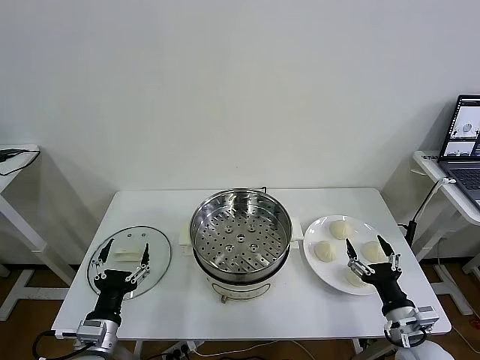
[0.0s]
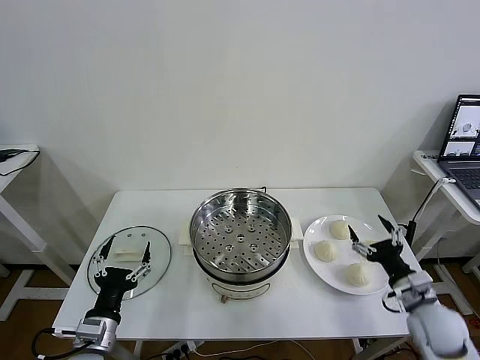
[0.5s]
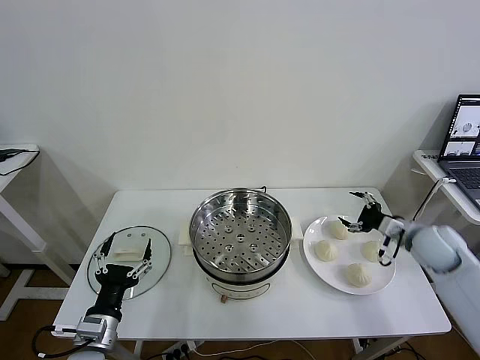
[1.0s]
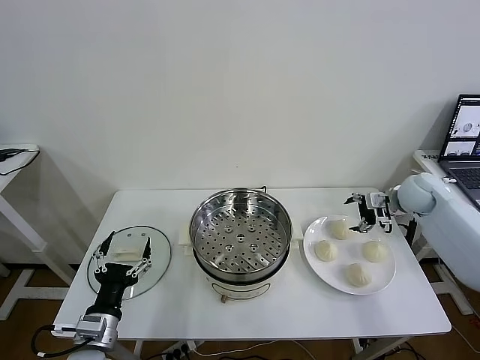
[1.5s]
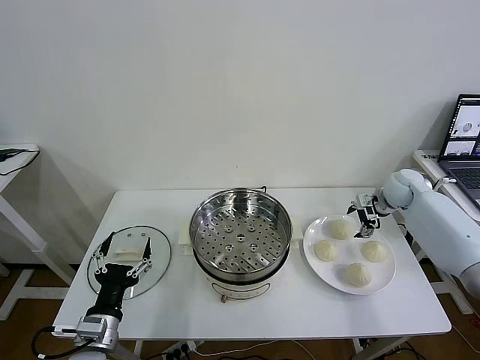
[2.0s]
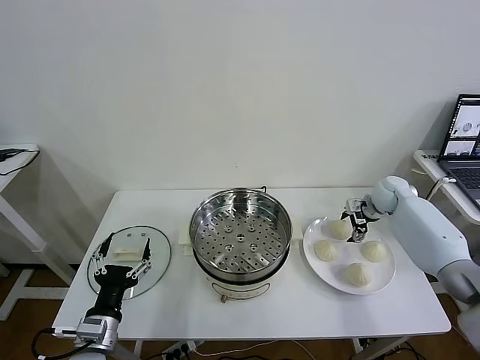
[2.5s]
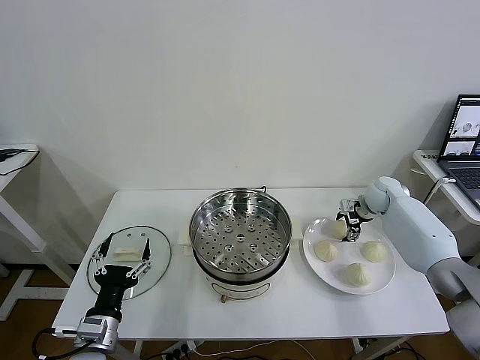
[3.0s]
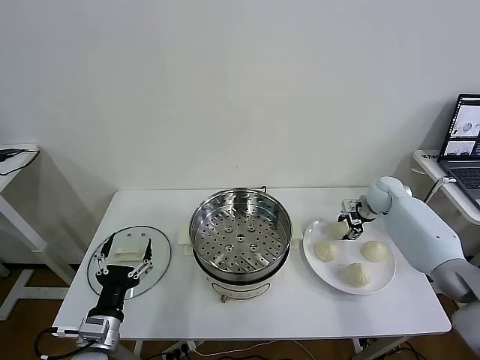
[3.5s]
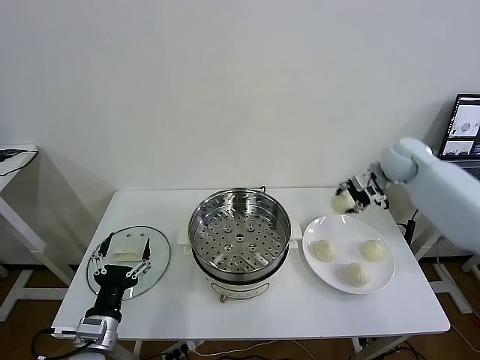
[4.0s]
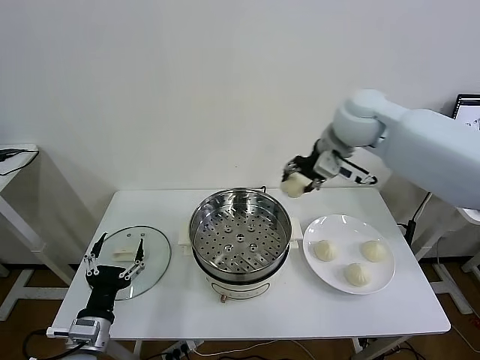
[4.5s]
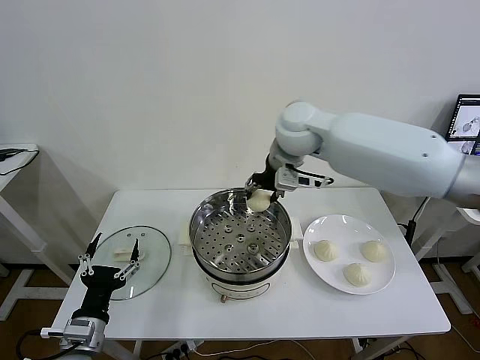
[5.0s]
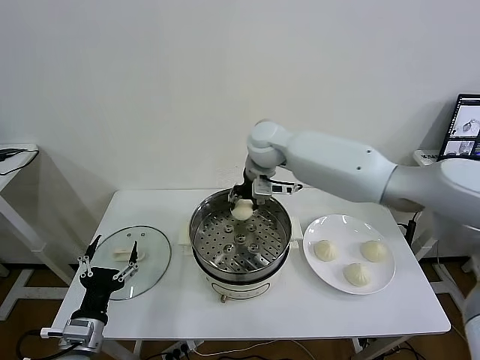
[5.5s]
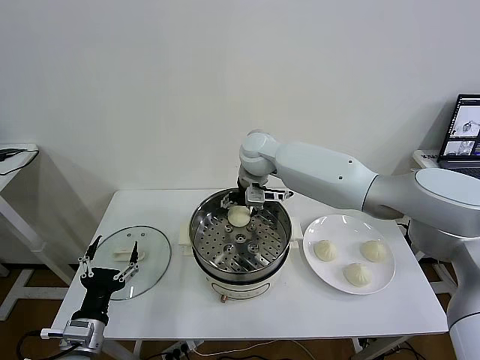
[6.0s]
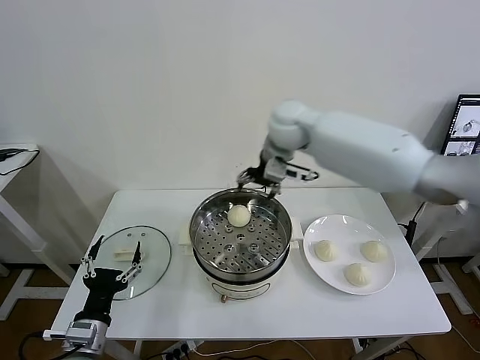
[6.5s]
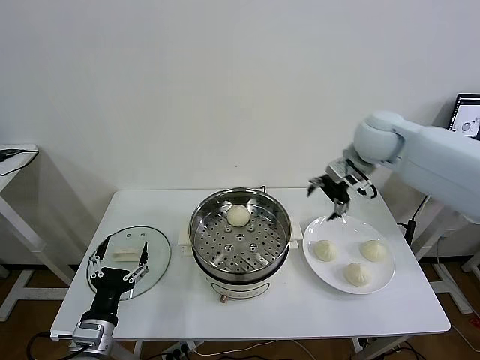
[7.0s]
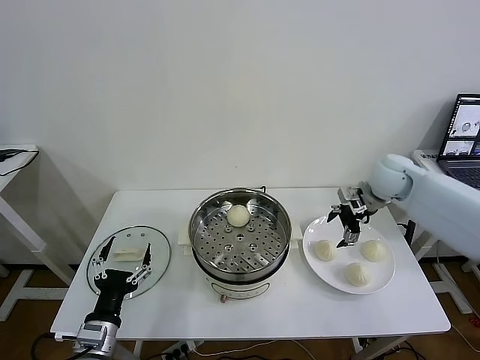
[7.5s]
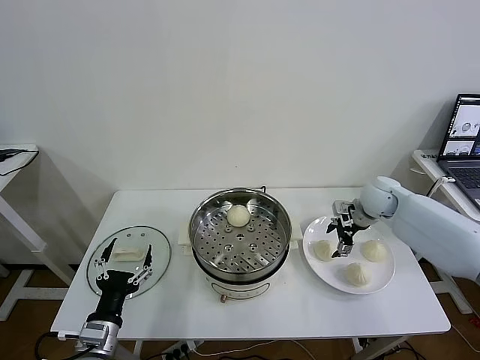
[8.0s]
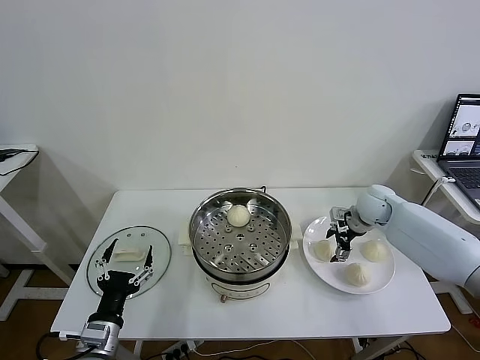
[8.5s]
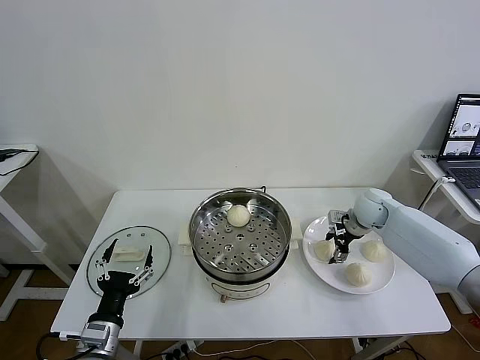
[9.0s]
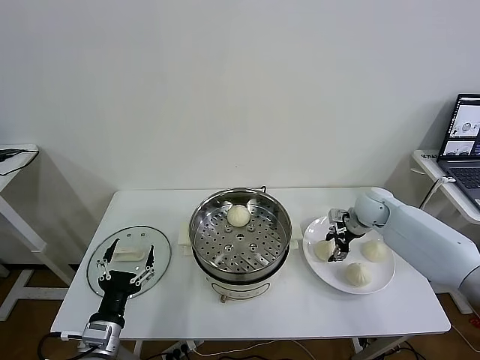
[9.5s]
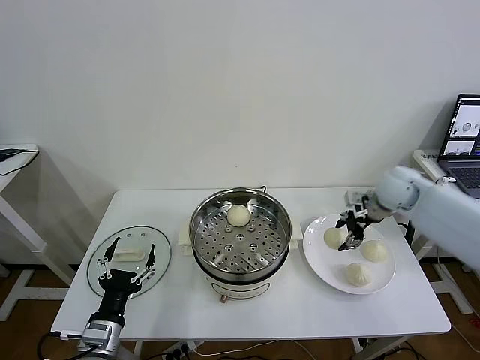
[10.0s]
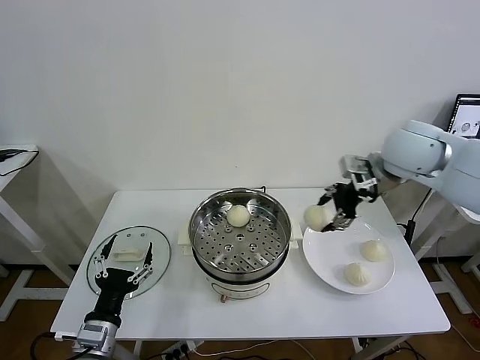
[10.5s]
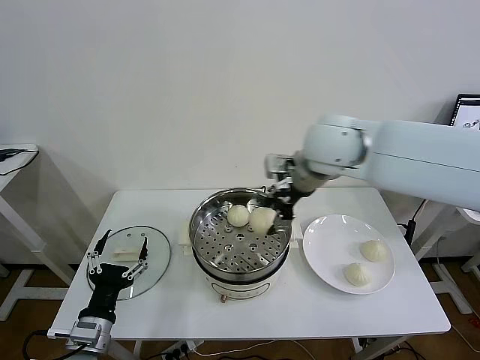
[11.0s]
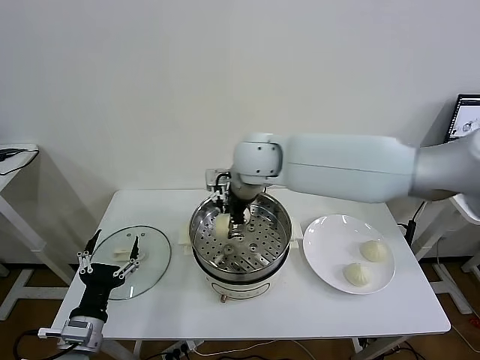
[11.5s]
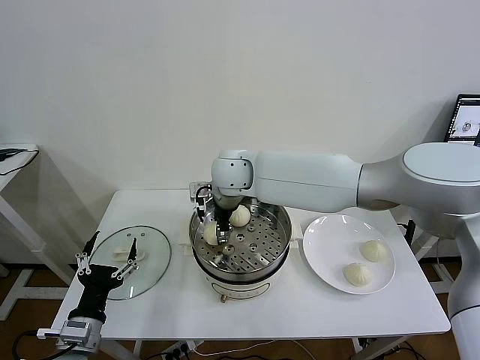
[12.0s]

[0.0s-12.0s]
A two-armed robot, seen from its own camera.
Task of the whole recording: take steamed baozi put them in steamer then cover it.
Step, 0.0s to 3.0s: Grasp the baozi in the plate with right gripper.
Step, 3.5s to 6.0s: Place the baozi on the steamer with right gripper.
Step, 6.5s to 9.0s: Grasp the baozi in the plate with right gripper.
2.0s to 4.0s: The right gripper goes roughly 15 cm upward and to the left, and closes.
4.0s to 6.0s: The right gripper moves to the left, about 30 cm, and opens.
6.0s to 8.0s: The right gripper moves to the right, approximately 30 cm.
8.0s to 10.0s: The right gripper shifts some 10 cm upward, and closes up.
10.0s to 12.0s: The right gripper heads to the left, covering some 40 cm.

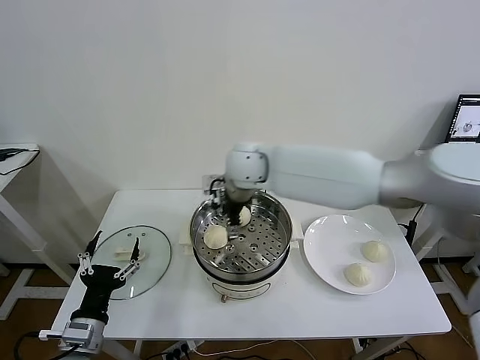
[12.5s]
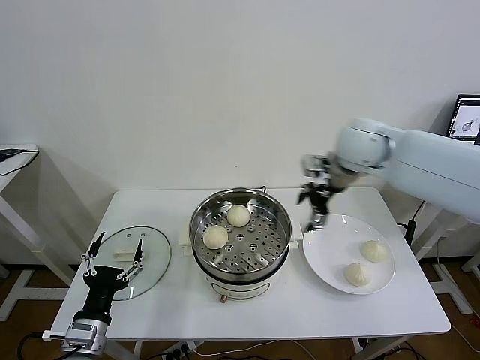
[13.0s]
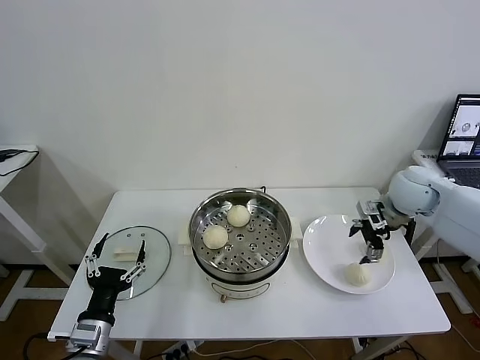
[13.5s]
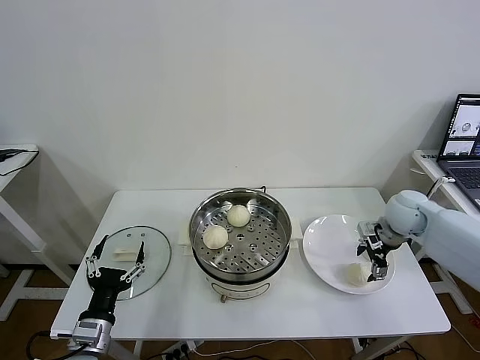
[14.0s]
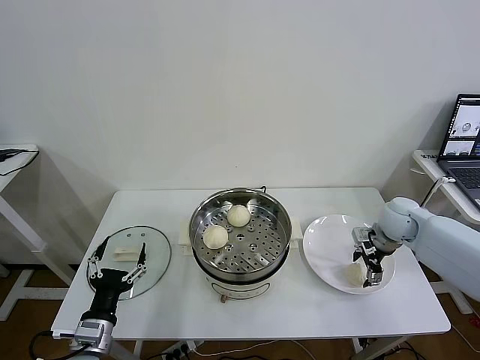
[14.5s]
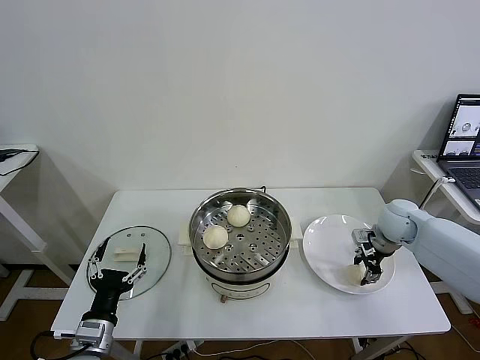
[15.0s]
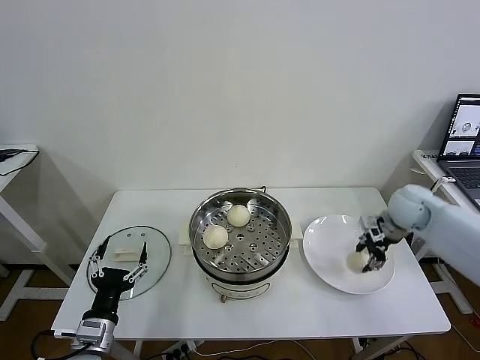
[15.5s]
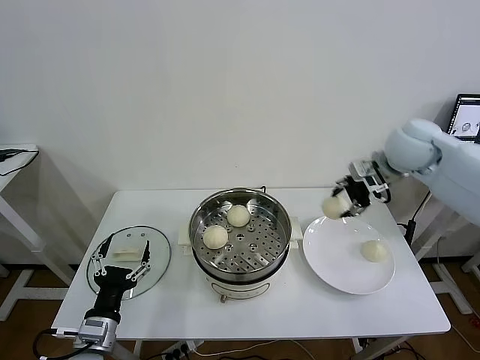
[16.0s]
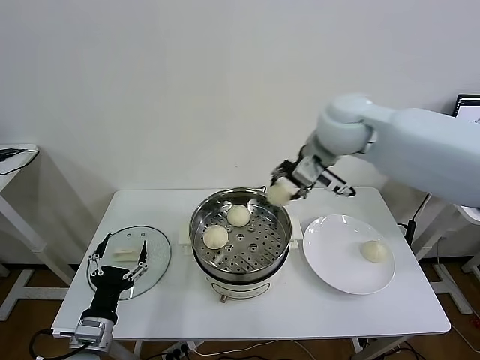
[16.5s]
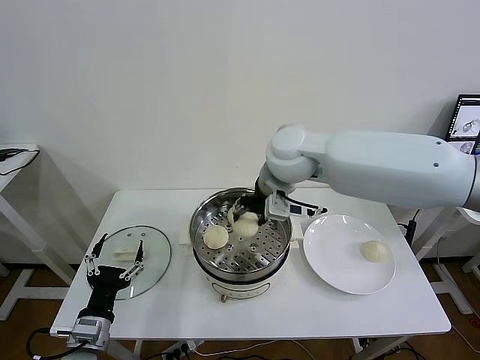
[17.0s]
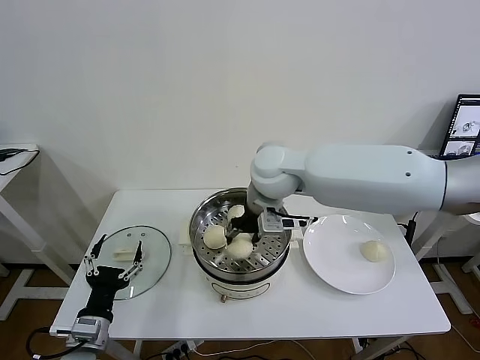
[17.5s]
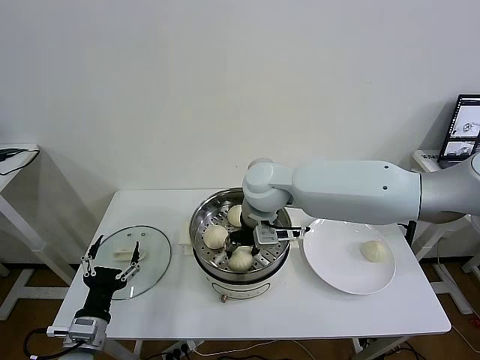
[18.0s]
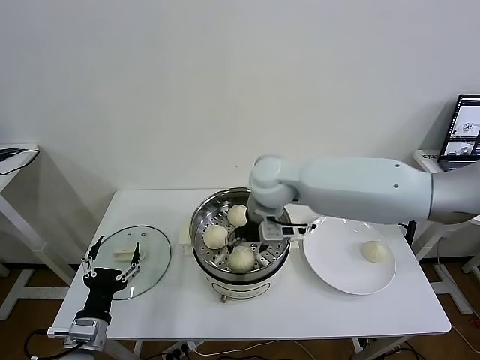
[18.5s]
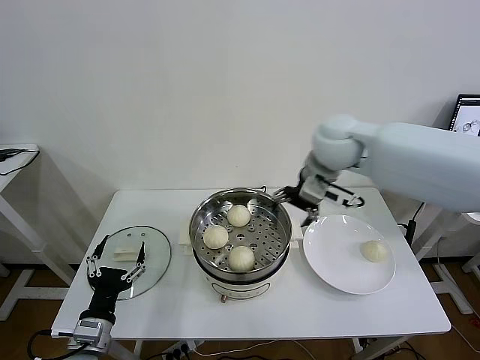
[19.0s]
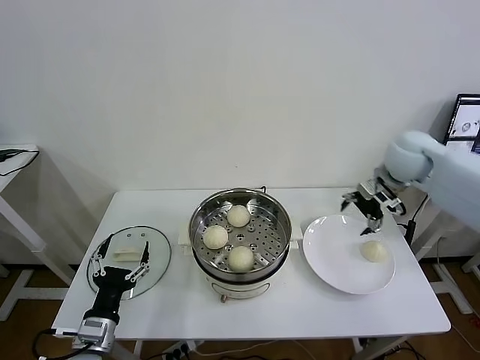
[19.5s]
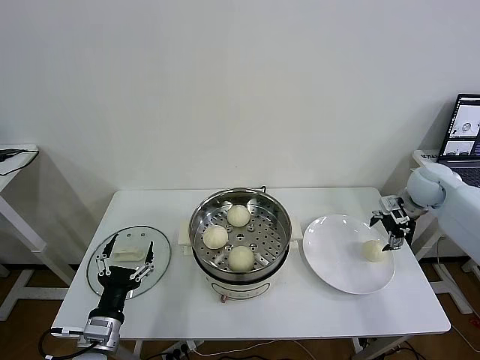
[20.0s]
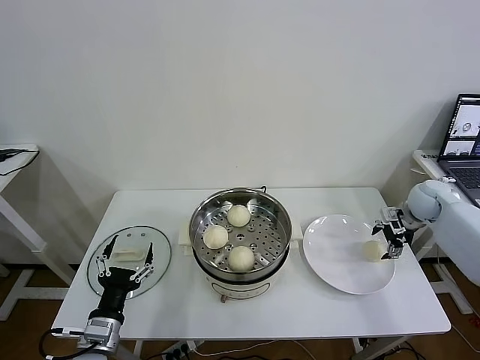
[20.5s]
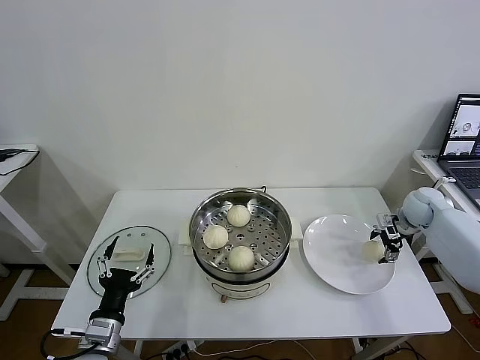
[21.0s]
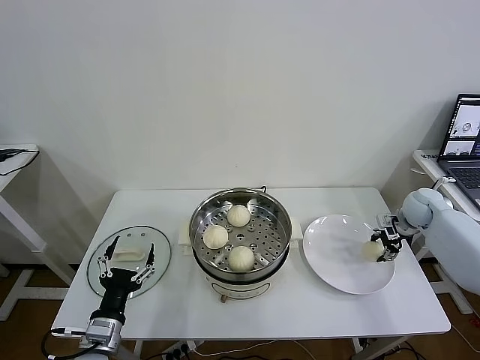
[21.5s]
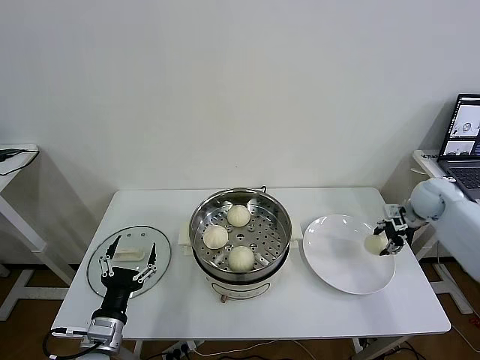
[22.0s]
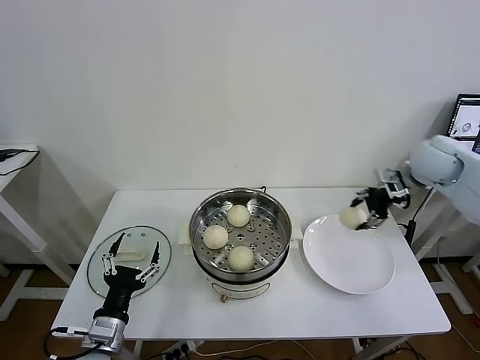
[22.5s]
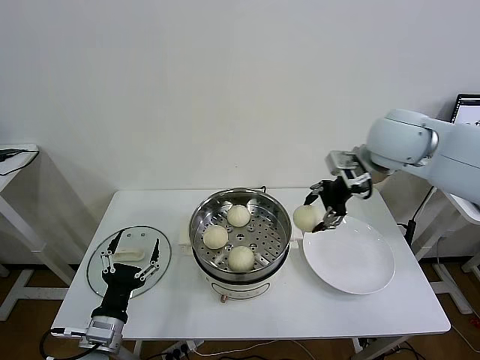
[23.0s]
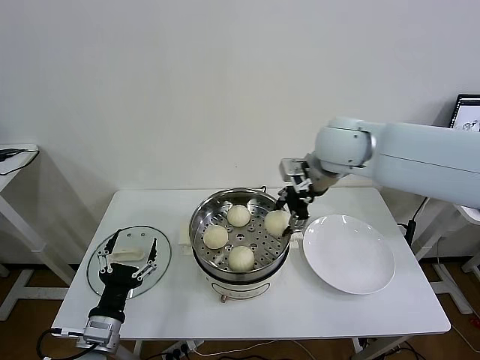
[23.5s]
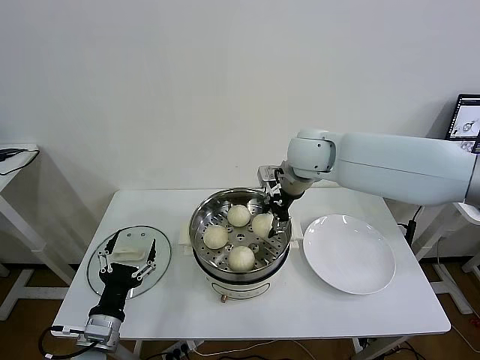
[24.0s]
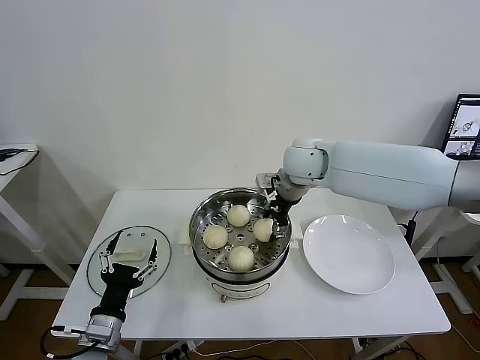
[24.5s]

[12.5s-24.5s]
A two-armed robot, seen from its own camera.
Task of the whole recording: take steamed baozi put them in steamer then cover it.
Step, 12.5s to 14.5s: Grasp the baozi in the plate with right gripper.
Step, 15.0s to 18.0s: Place the baozi on the steamer with right gripper.
Step, 18.5s to 21.5s: Grasp the baozi in the plate with right gripper.
12.5s to 14.5s: The right gripper heads to the right and downward, covering about 40 cm.
14.5s to 16.5s: The right gripper travels upward and to the left by approximately 35 cm, and closes its fingers.
16.5s to 18.5s: The right gripper shifts roughly 15 cm downward and to the left, and opens up.
18.5s to 20.5s: The right gripper travels to the right by some 40 cm.
20.5s to 22.5s: The right gripper shifts some 15 cm upward and to the left, and closes its fingers.
22.5s to 24.5s: The right gripper is displaced to the left by about 25 cm.

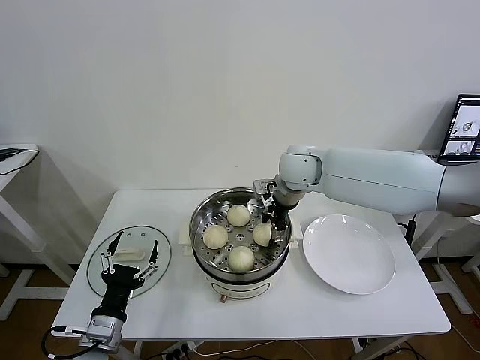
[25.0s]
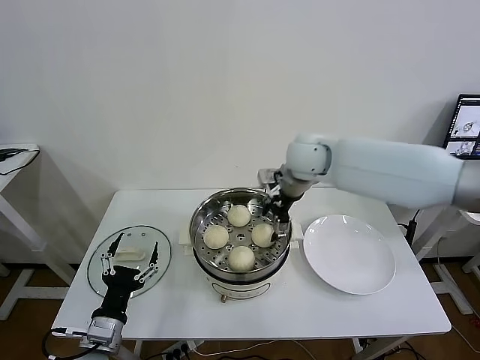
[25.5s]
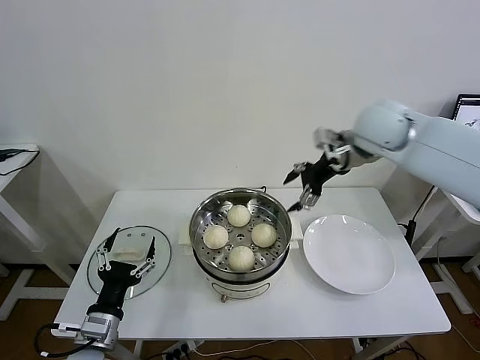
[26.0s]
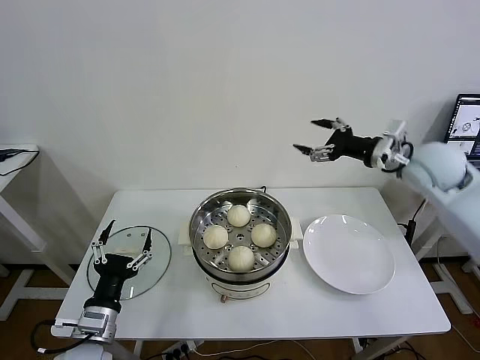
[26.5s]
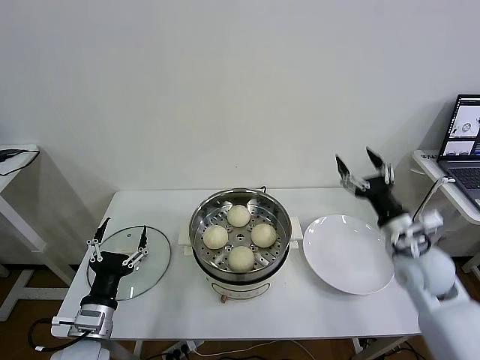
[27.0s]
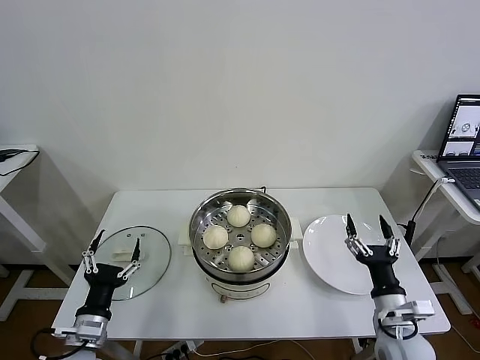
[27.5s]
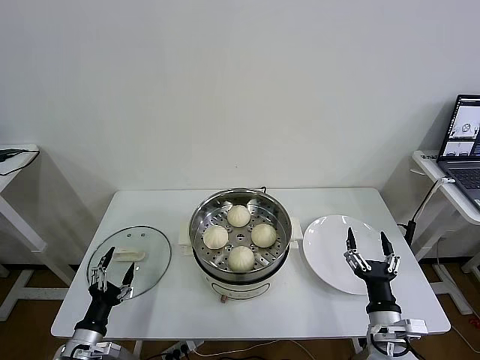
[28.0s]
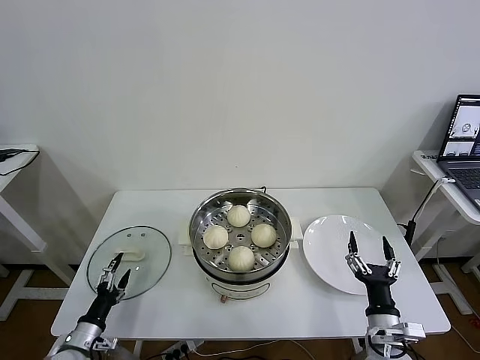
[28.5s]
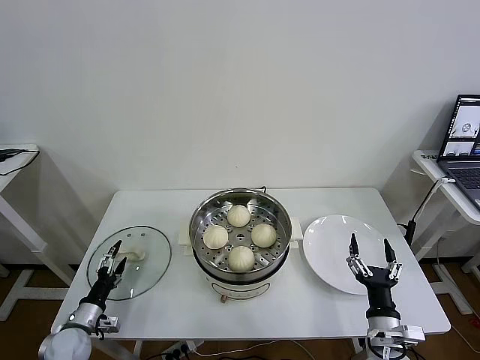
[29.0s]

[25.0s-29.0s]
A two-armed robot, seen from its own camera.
Task of the whole recording: take steamed baozi put them in steamer then cover it.
25.0s to 27.0s: The right gripper moves to the right, backward and downward, roughly 30 cm, and opens.
27.0s to 29.0s: The left gripper is displaced downward and to the left by about 20 cm; the right gripper travels backward, downward and to the left by about 20 cm.
